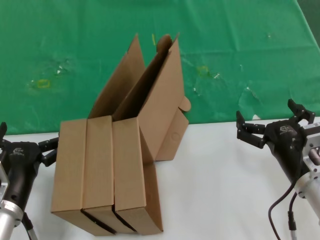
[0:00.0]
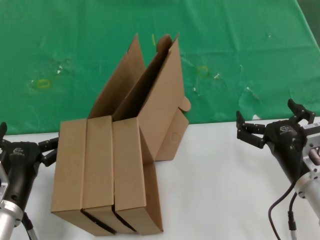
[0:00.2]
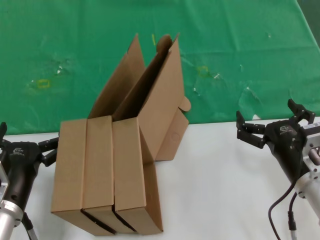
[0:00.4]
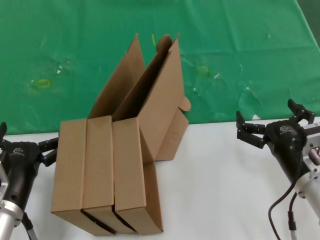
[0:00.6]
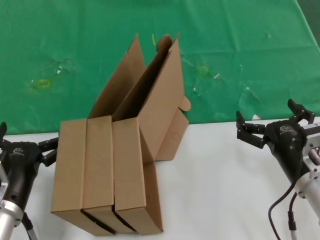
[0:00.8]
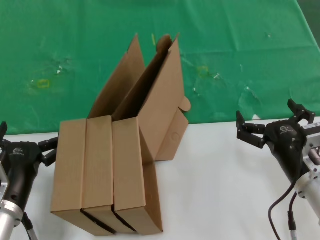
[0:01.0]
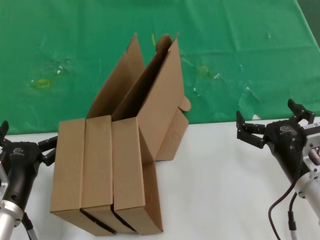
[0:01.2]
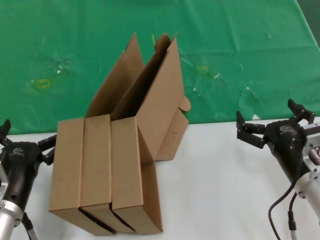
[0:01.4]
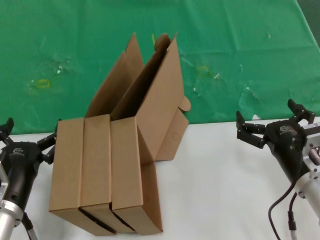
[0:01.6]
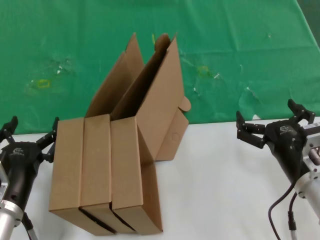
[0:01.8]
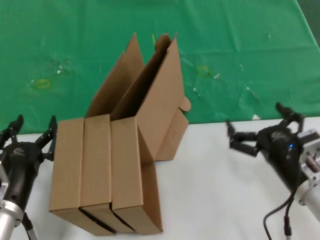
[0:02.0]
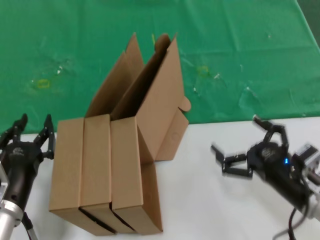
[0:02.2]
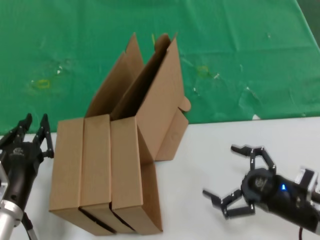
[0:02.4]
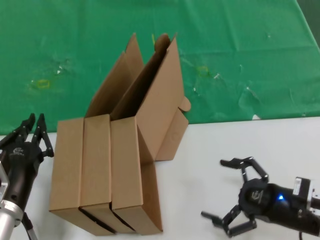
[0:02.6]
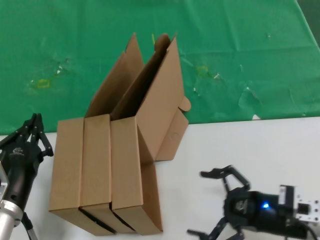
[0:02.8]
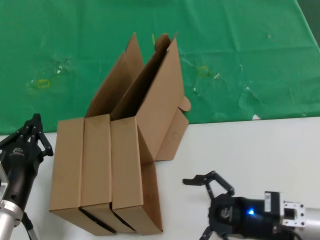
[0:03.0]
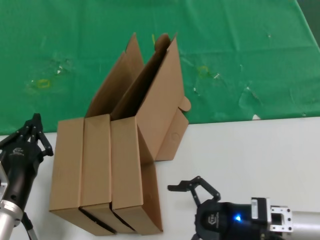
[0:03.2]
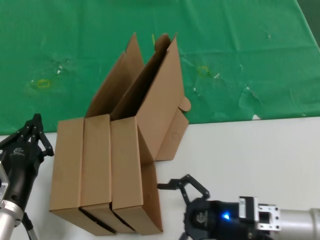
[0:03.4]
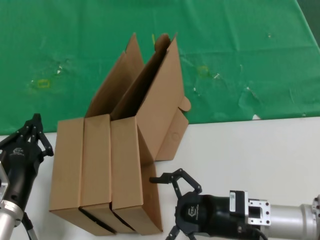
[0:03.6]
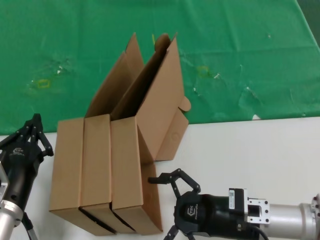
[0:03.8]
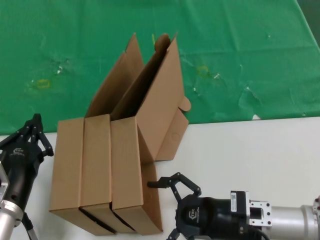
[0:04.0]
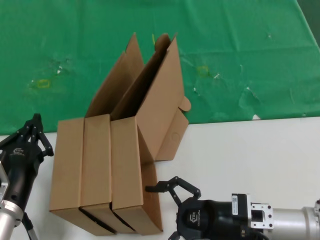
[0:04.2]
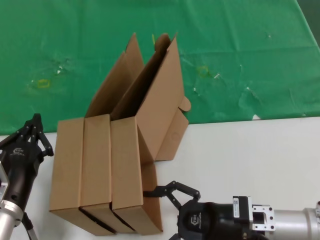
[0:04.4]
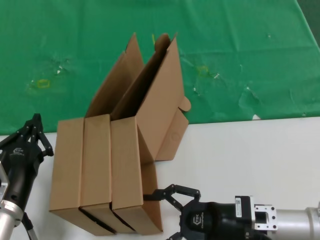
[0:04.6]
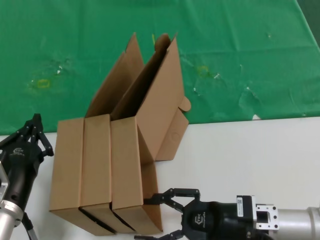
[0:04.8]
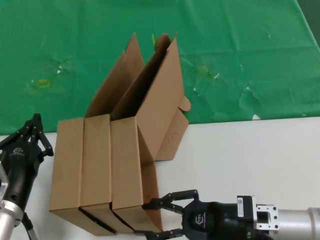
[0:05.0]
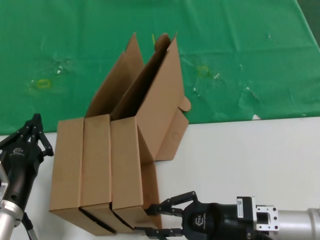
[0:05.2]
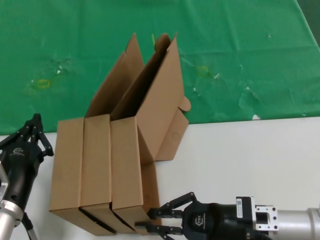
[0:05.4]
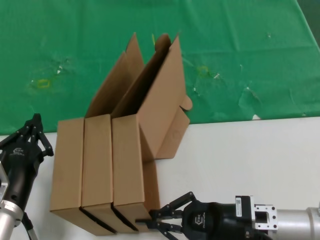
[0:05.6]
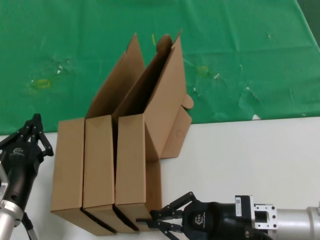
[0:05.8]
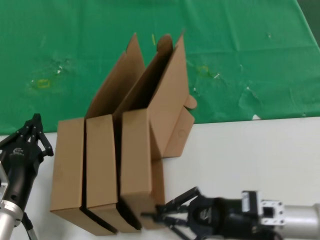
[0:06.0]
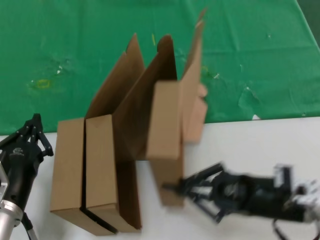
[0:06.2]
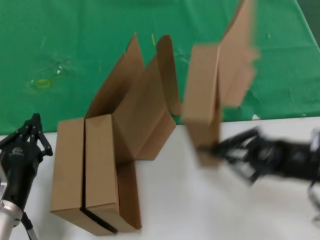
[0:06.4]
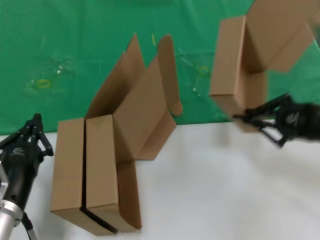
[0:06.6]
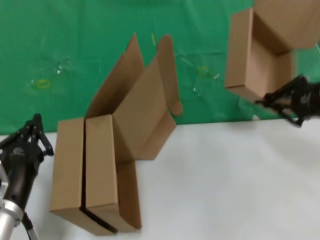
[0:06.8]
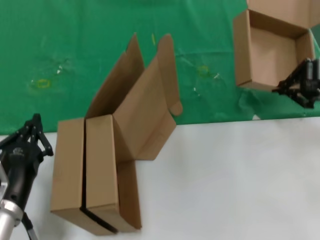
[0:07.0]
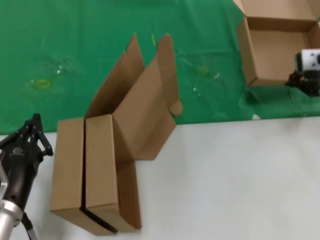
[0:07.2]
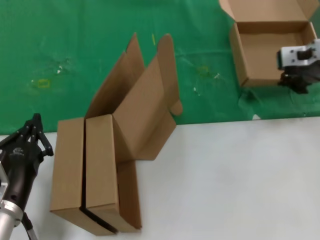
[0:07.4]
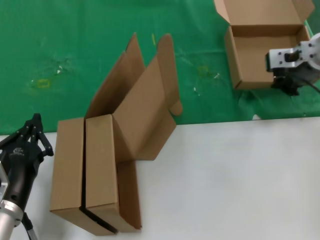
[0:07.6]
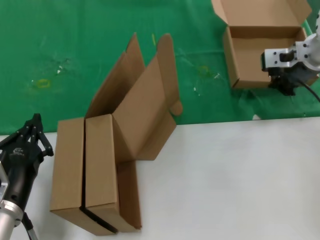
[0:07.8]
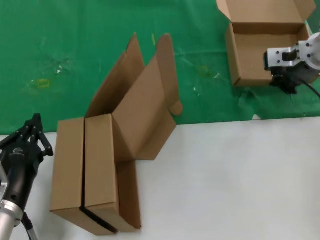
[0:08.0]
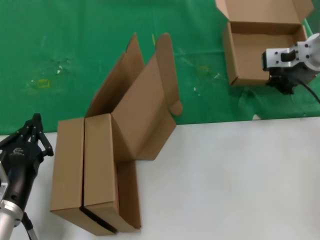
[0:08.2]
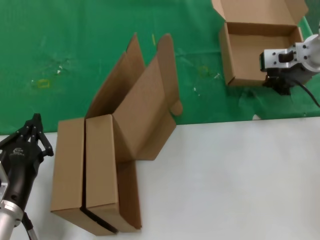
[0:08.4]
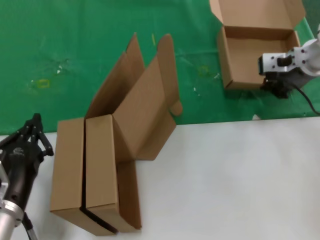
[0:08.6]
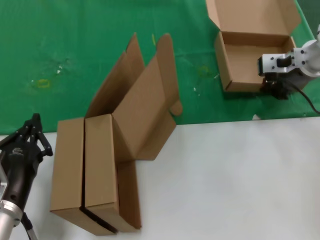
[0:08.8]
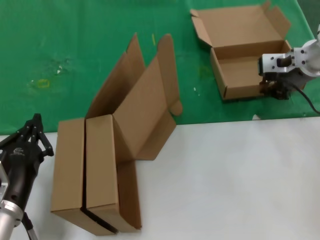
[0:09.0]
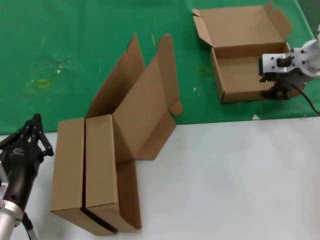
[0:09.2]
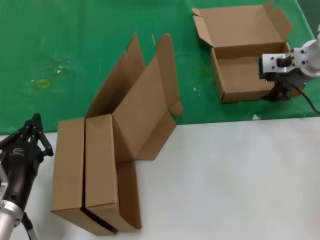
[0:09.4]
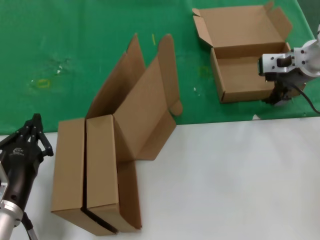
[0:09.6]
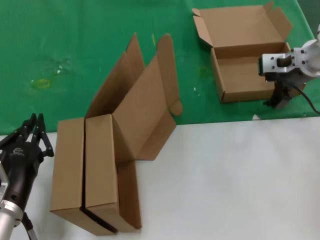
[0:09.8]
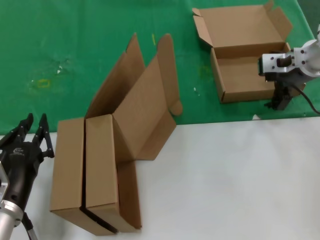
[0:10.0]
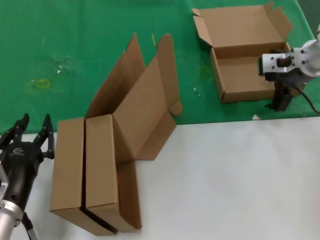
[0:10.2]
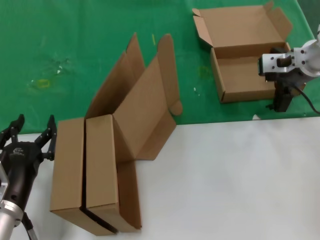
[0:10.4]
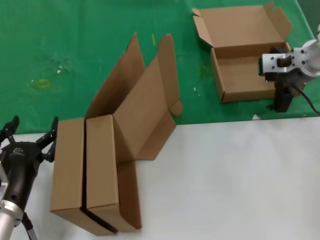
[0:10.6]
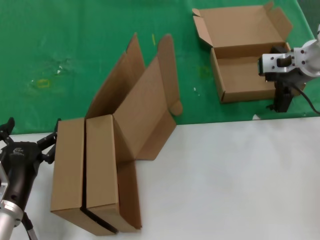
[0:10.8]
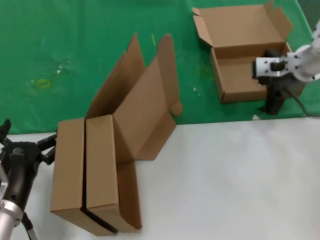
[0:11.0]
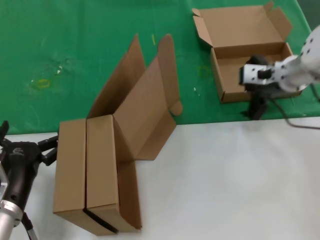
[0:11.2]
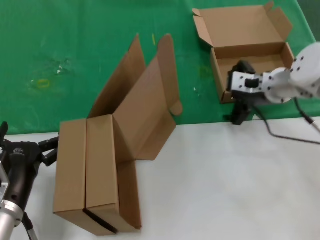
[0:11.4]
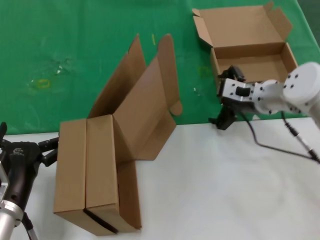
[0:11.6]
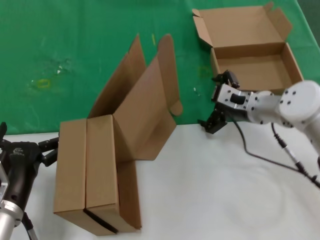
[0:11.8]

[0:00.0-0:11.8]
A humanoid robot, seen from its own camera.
Task of the whole recording: pick up the paper box and put it at the back.
Step, 0:00.0 to 0:05.4: Grasp the paper box.
Step, 0:05.6 to 0:09.2: Place the paper box on the table.
0:00.0 to 0:01.4: The two hands keep their place.
0:03.0 to 0:04.4: The right hand goes approximately 5 cm to the left.
0:04.4 to 0:06.0: The hands move only a little.
0:06.0 to 0:07.4: The right hand is displaced upward and forward by roughly 35 cm.
0:07.4 to 0:08.8: The hands make only small movements.
0:08.8 to 0:10.4: The two hands keep their place.
0:10.4 to 0:11.8: The right hand moves downward and to the left, roughly 15 cm.

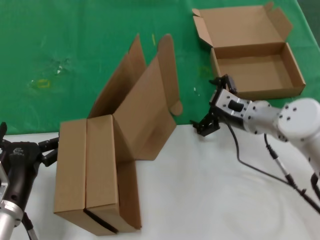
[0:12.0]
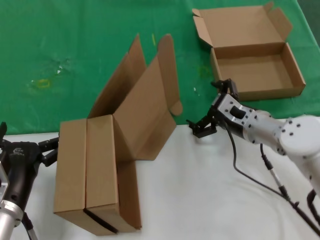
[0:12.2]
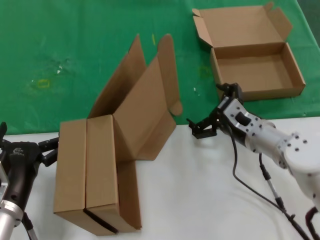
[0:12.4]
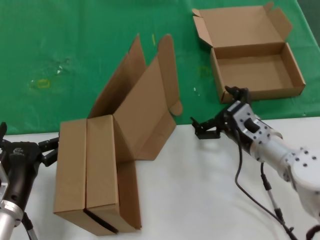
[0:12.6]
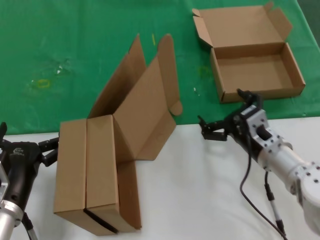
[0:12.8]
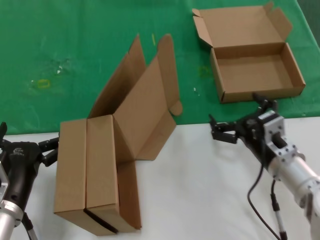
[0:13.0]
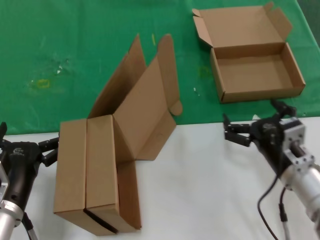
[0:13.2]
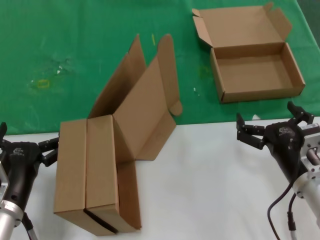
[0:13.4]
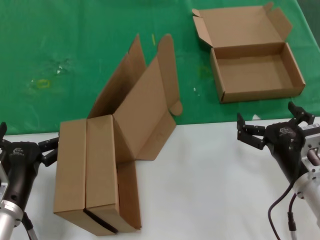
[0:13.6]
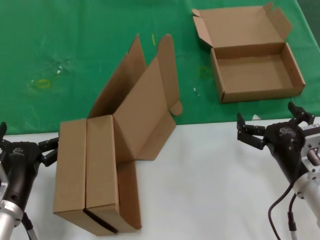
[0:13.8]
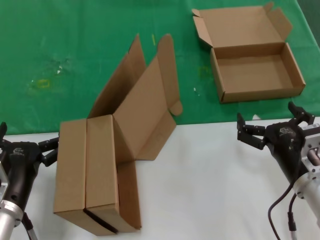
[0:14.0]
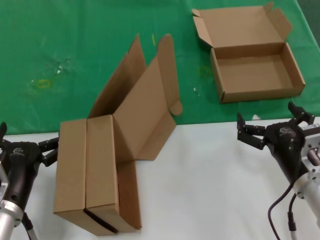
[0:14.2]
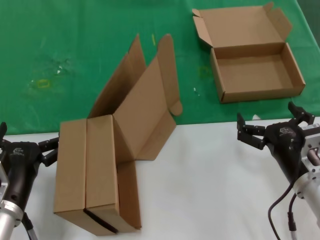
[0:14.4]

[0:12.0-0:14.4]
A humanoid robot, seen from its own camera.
Task of the whole recording: pick up the paper box and put it at the back.
0:12.0 to 0:13.2: The right hand goes about 15 cm backward.
0:13.2 to 0:14.4: The hands stay close to where they were, moving slightly.
